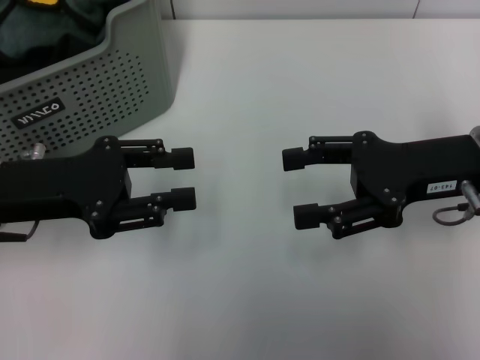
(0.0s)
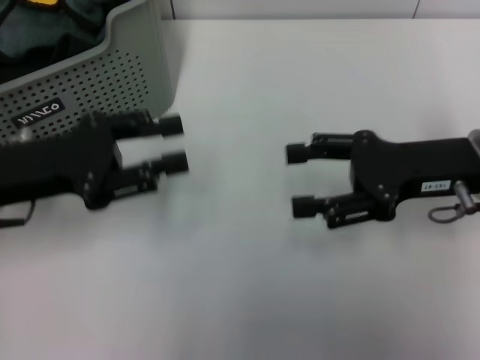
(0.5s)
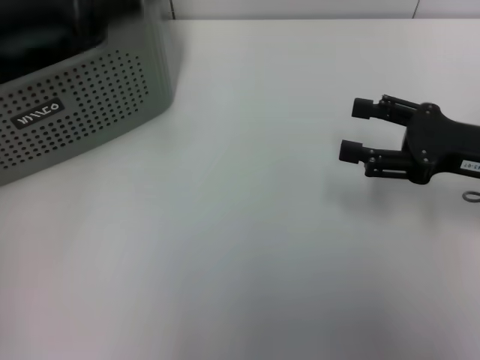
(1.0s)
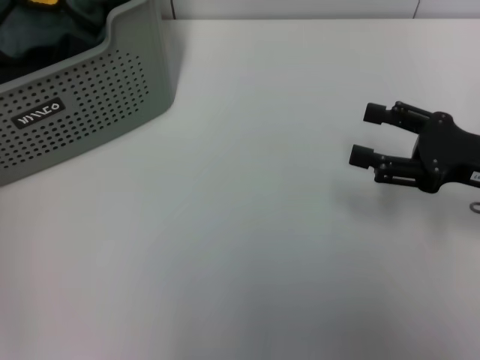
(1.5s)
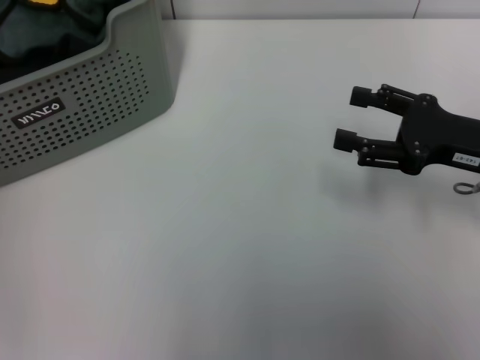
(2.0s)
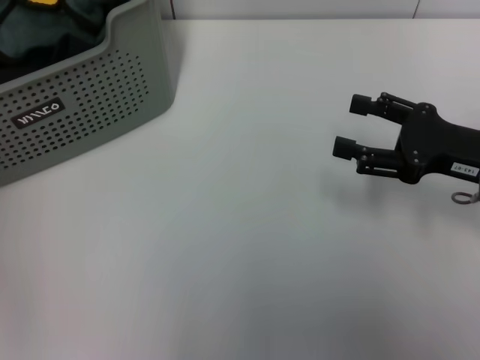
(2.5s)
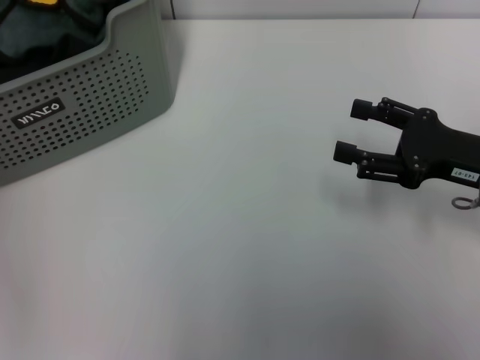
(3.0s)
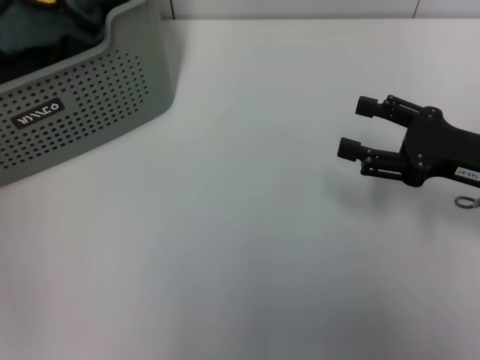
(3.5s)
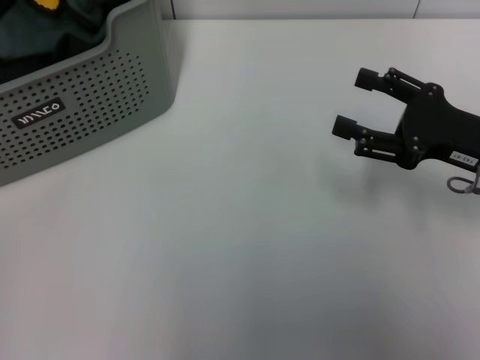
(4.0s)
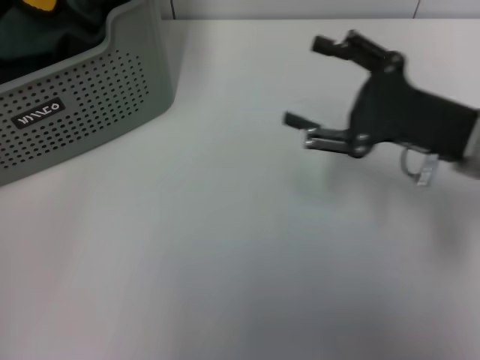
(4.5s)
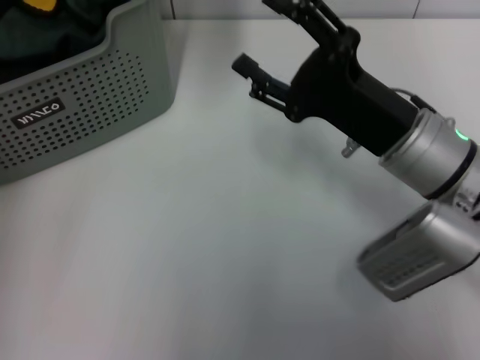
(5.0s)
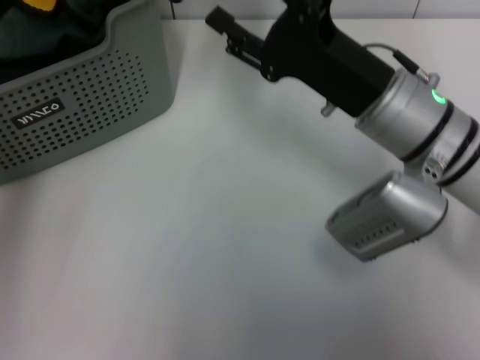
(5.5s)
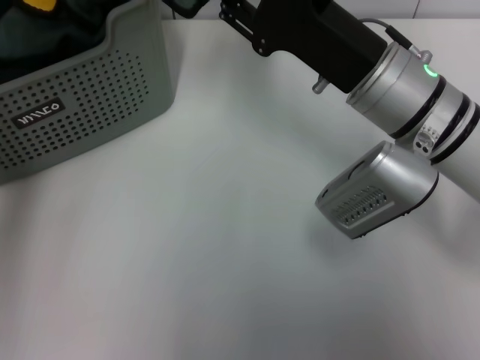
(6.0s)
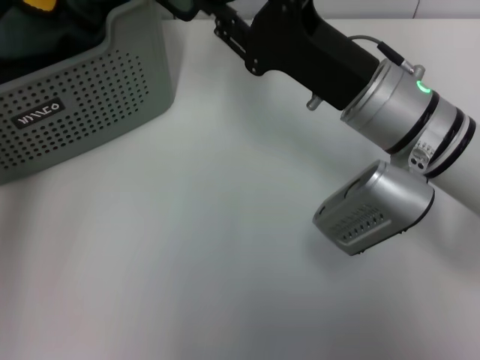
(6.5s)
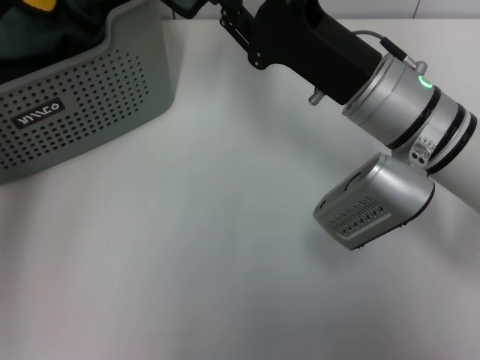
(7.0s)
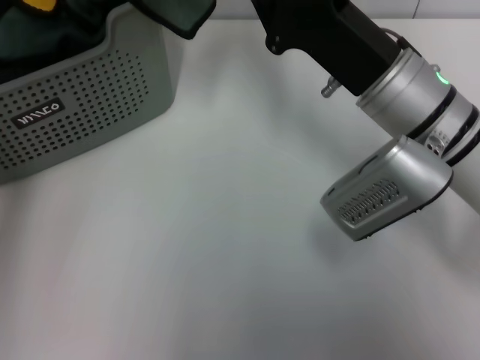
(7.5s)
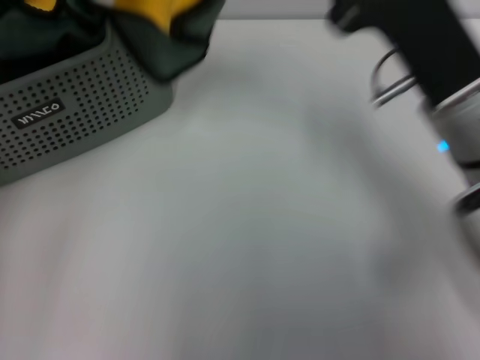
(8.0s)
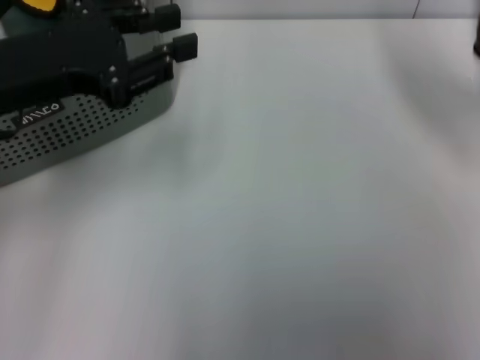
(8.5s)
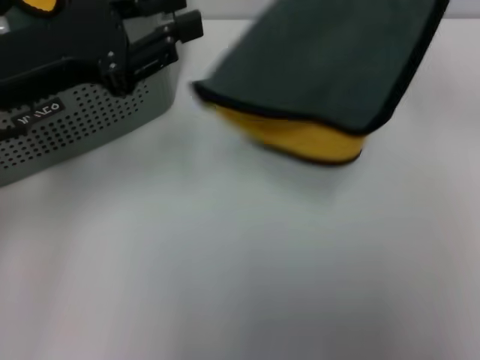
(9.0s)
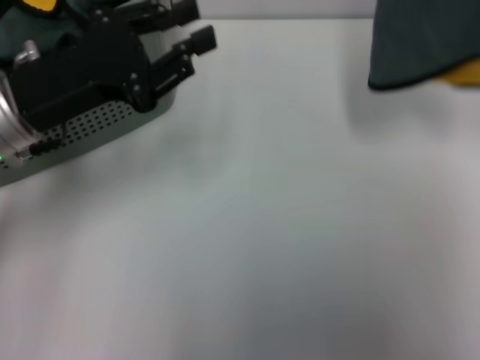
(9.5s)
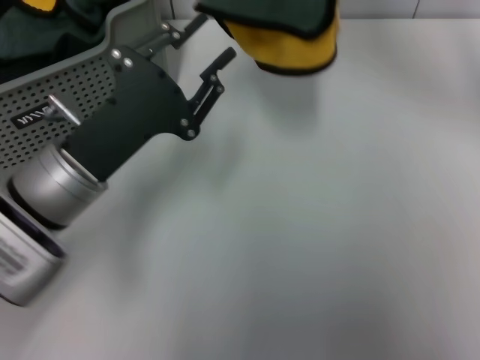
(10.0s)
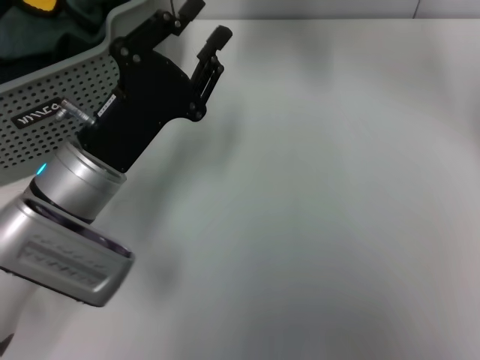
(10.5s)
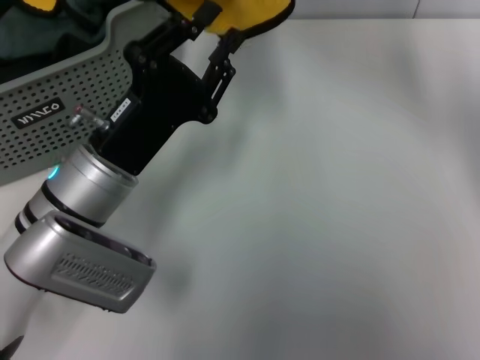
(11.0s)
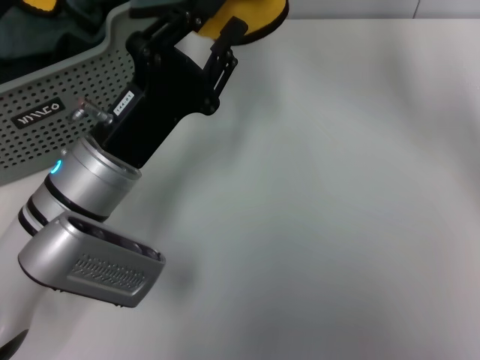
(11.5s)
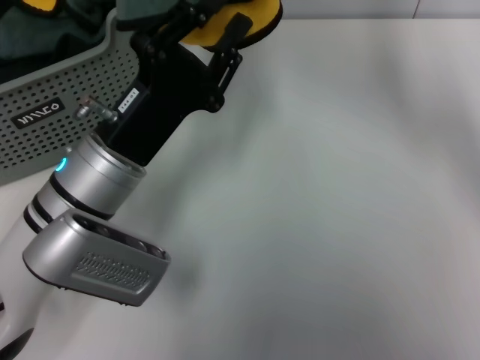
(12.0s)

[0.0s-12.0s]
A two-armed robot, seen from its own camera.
Task of the whole recording: pick up the towel from the storage box and lay it flat on the table.
Step, 0.0s to 3.0s: Pick up a towel with the left gripper.
Step, 3.5s to 7.5s: Spread the towel flat with the left gripper.
0.0s to 2.0s: The left gripper travels upward, forward and to the left by some 20 cm. The right gripper shifts by roughly 5 cm.
4.0s to 6.0s: The left gripper shifts about 15 cm to the right. The right gripper travels to the left by some 15 cm.
6.0s to 8.0s: The left gripper heads downward, covering approximately 10 cm. Meanwhile the right gripper shifts by about 5 cm, and closes its fingers.
8.0s to 10.0s: The left gripper goes roughly 15 cm downward and to the right, and opens. The right gripper shifts approximately 15 cm upward, forward and to the right.
10.0s to 12.0s: The right gripper is displaced to the left by approximately 10 cm.

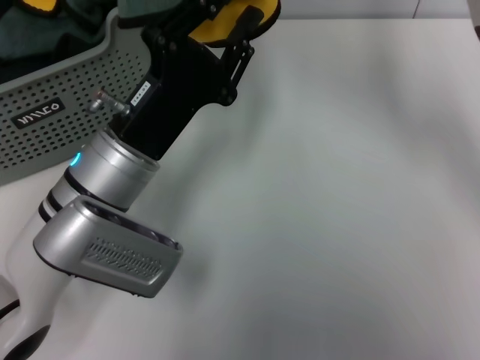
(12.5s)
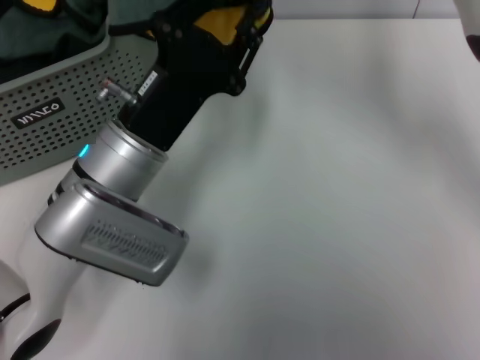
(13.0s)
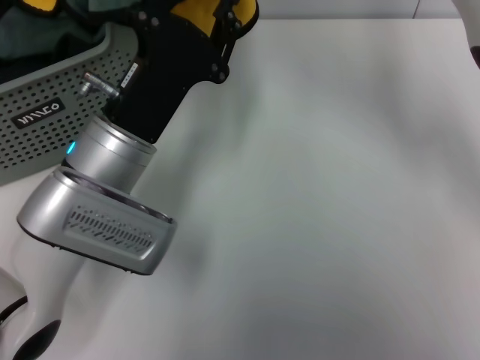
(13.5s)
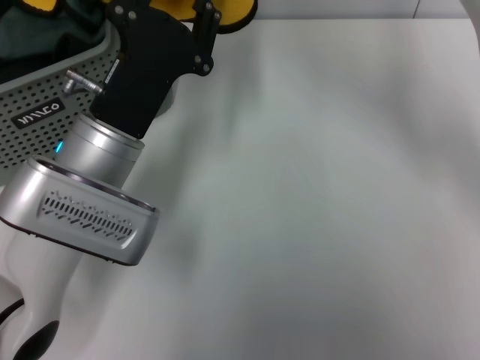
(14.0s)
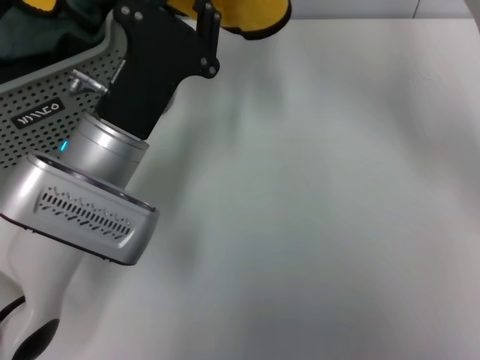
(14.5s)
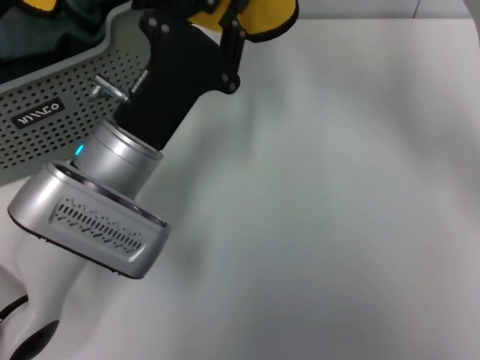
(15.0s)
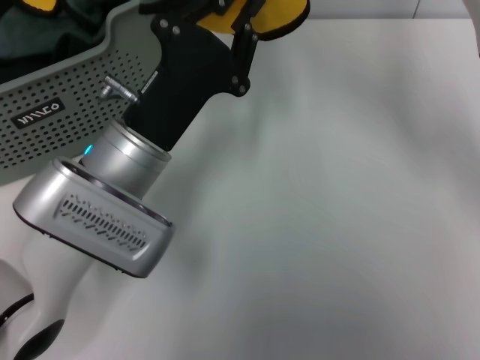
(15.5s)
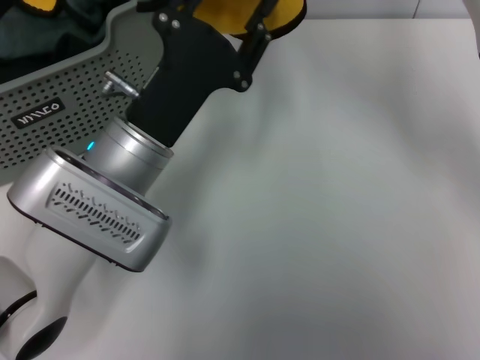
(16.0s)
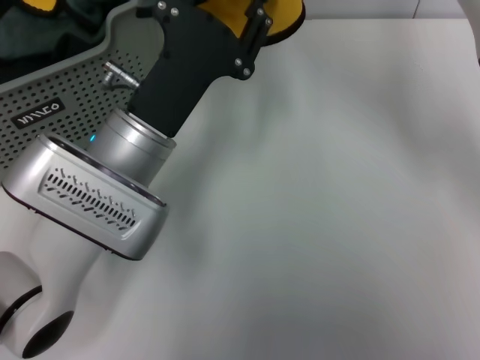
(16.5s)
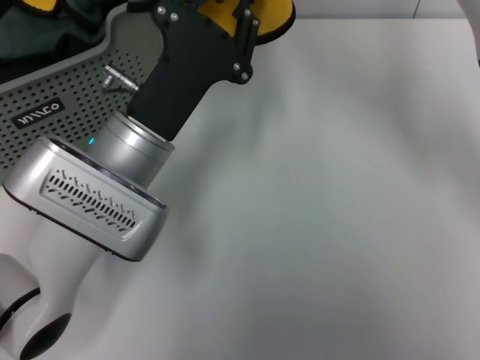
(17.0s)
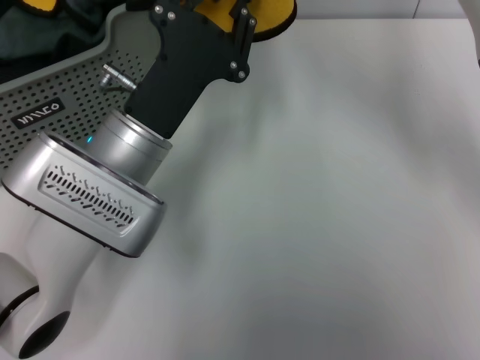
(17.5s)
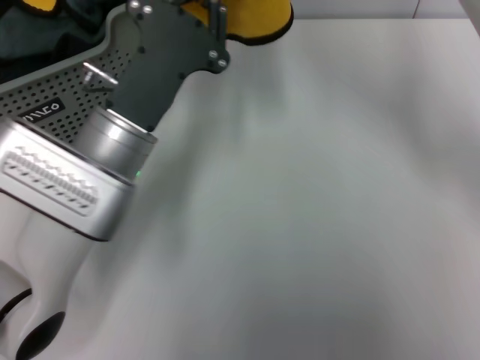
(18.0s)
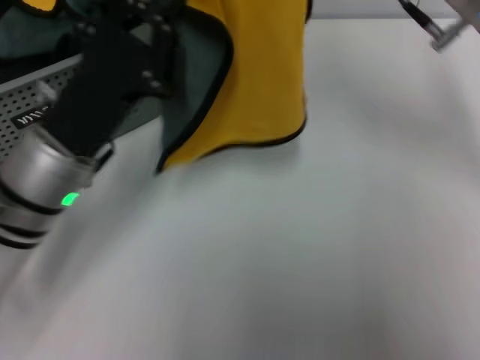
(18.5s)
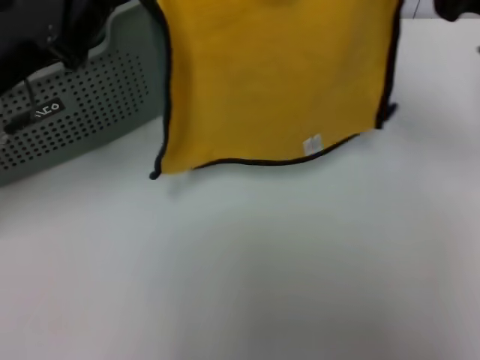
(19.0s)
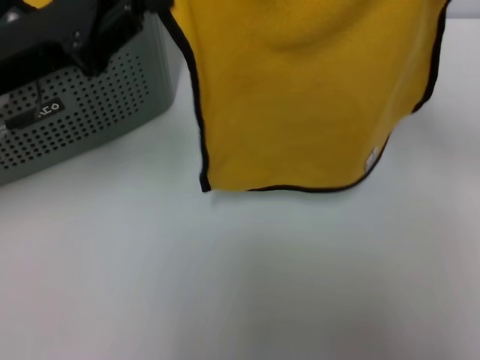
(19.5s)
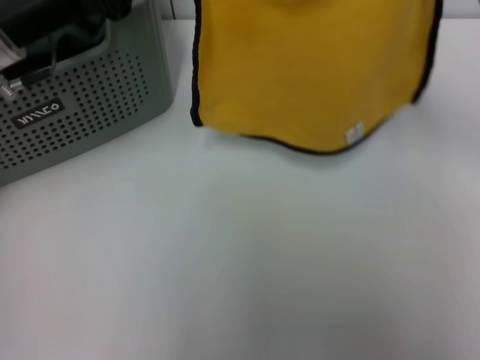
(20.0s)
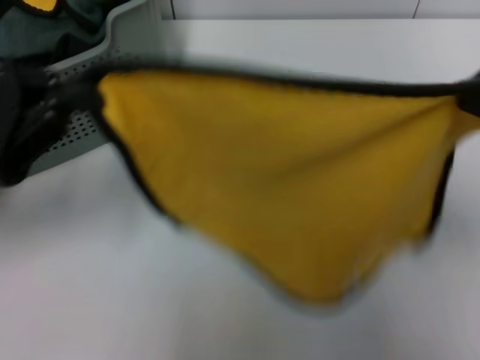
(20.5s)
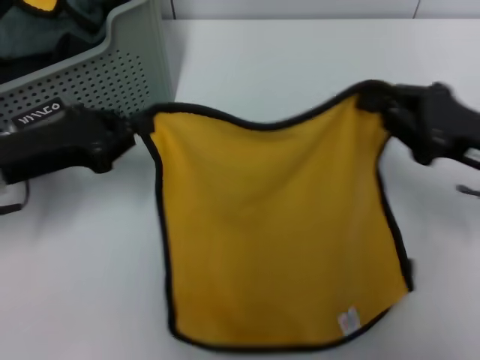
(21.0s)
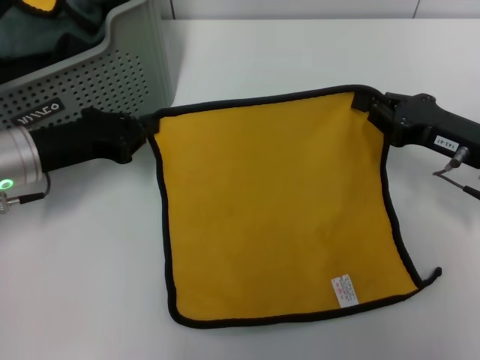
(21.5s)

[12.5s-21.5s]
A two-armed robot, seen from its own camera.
Task of the whole recording: pick up the towel from the storage box and lay it flat on the table.
12.5s to 14.5s: The grippers move only a little.
14.5s to 17.0s: The left gripper opens and closes again.
17.0s to 19.5s: The right gripper shifts about 20 cm to the right and downward, while the left gripper travels to the left and upward by some 15 cm.
19.5s to 21.5s: Both grippers move downward, roughly 10 cm.

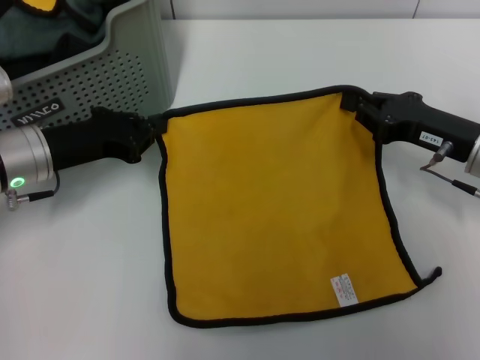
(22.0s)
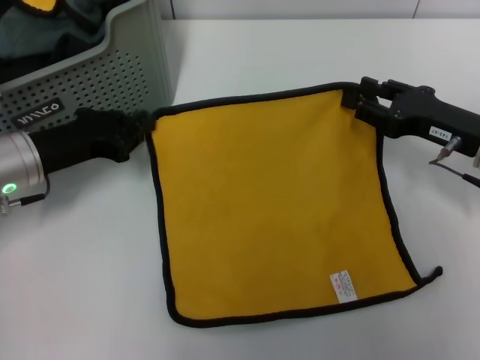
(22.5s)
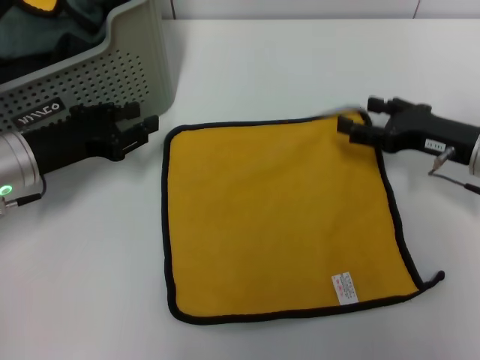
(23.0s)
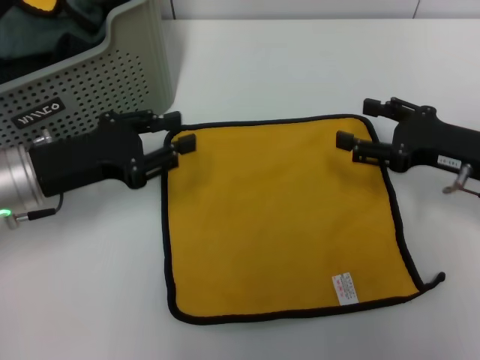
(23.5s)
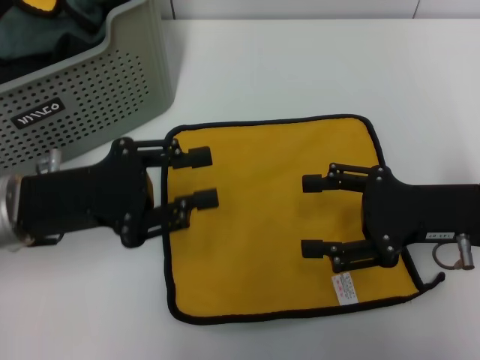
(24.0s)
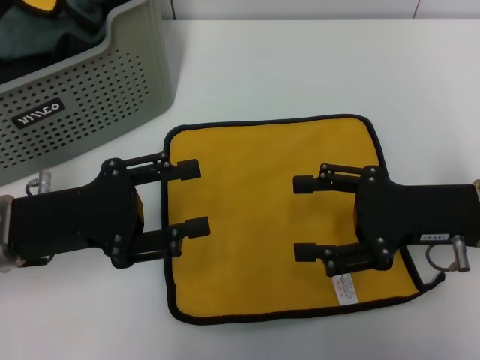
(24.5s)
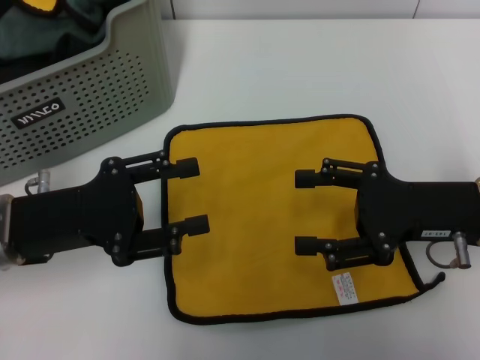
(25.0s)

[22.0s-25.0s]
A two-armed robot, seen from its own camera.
Task of the whole recording: pick up the towel from the storage box and lay it flat on the table.
22.0s to 23.5s: The right gripper opens up. Meanwhile the left gripper opens its fingers.
23.5s to 25.0s: The right gripper moves about 5 cm. The left gripper opens its fingers.
